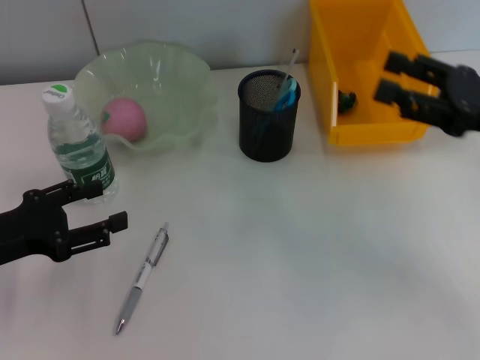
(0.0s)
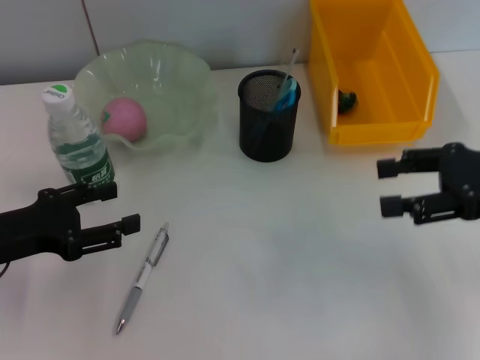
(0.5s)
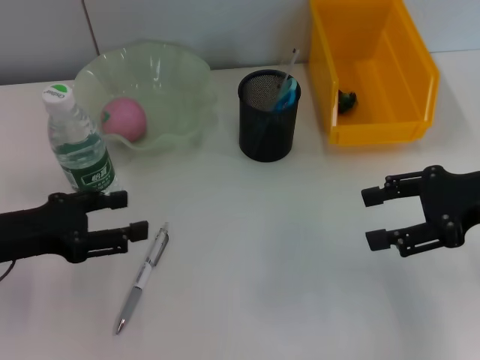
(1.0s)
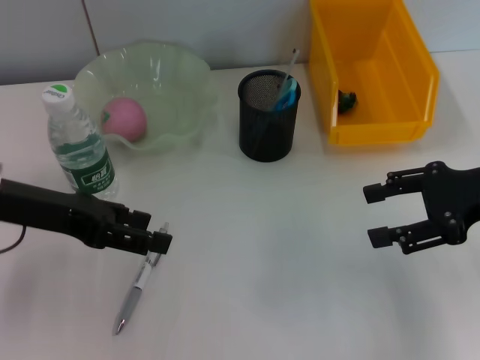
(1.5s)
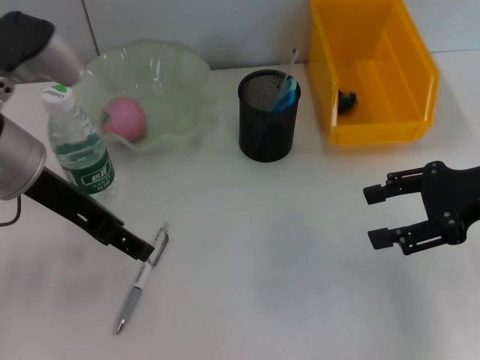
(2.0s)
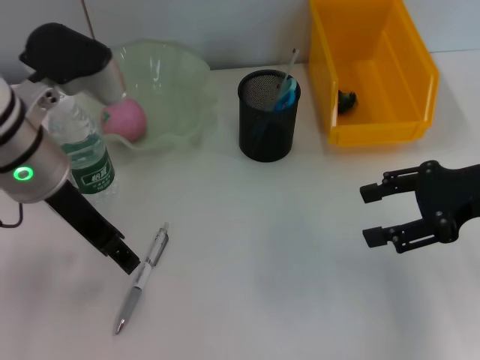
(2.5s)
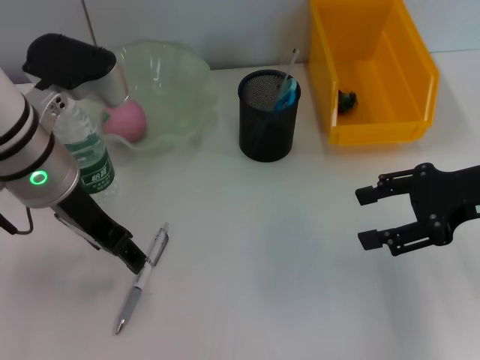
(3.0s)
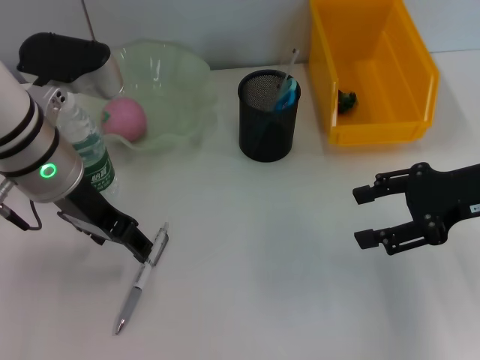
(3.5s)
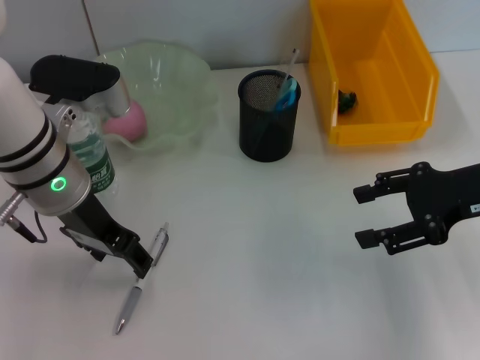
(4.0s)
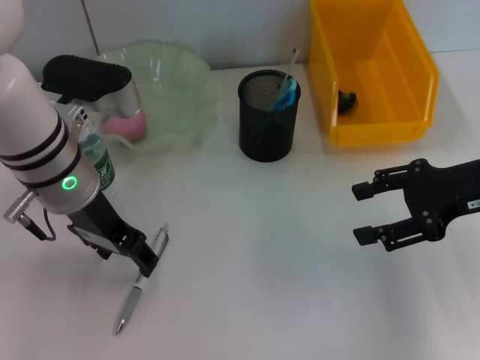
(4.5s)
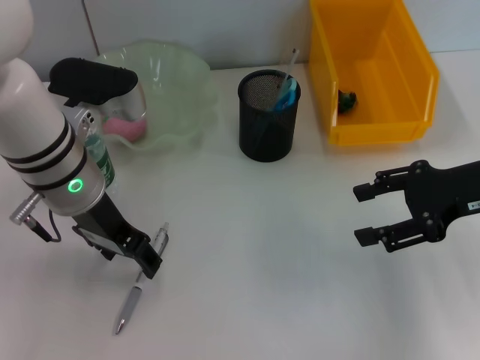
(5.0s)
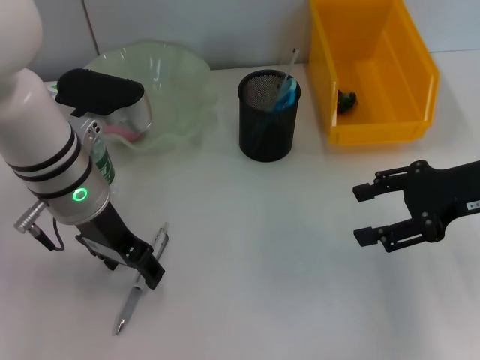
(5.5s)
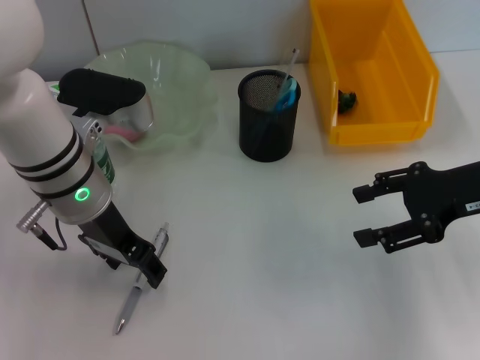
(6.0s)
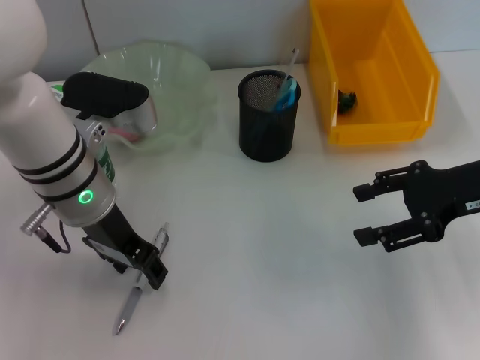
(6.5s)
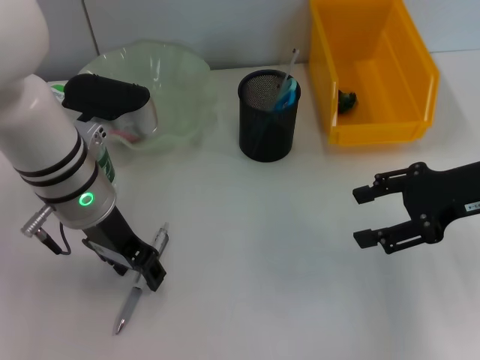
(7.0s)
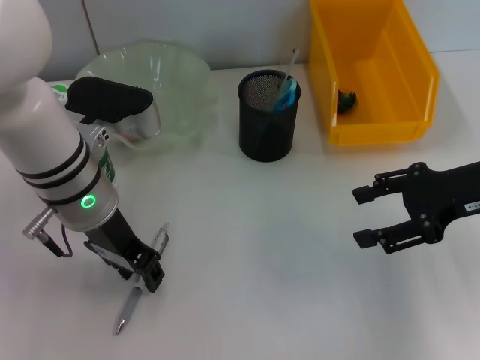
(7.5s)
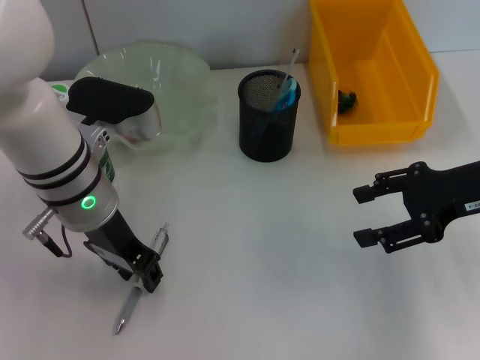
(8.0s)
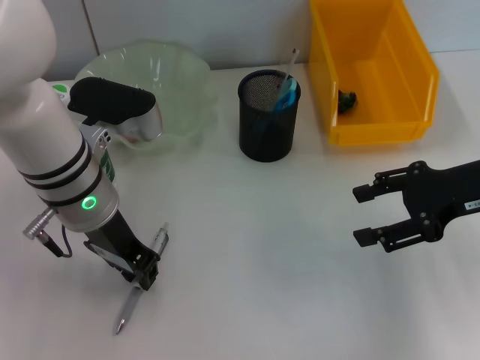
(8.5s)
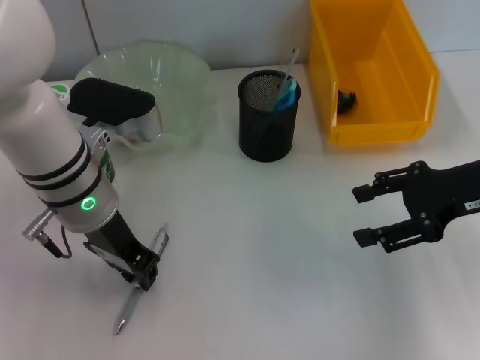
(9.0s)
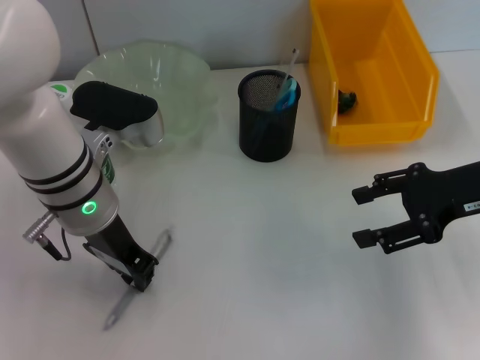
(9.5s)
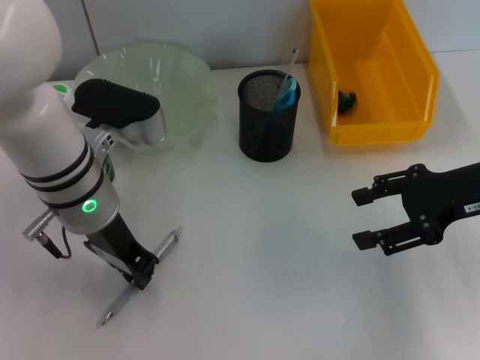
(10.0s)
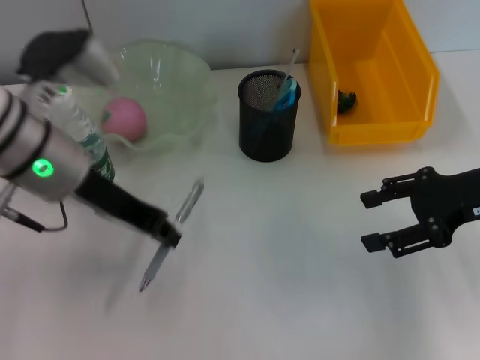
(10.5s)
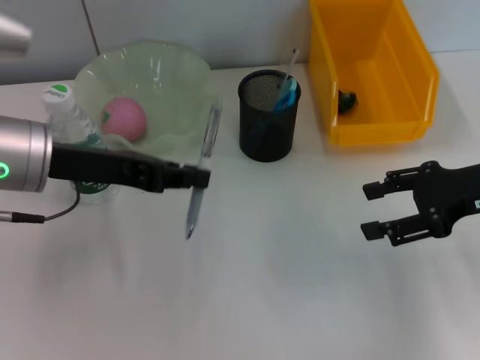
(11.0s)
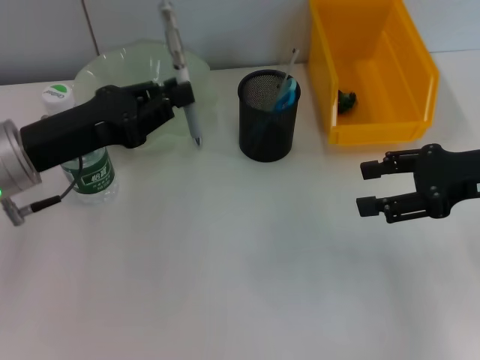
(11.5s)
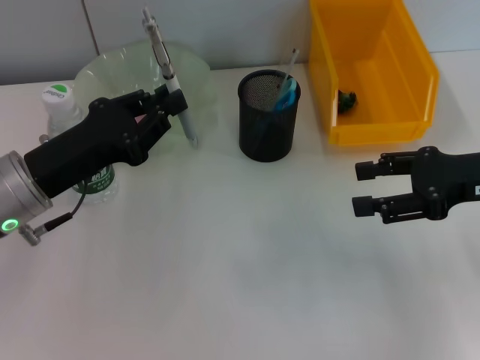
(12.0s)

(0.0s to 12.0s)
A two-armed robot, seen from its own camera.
Step, 0.0s - 9.5s: Grab the gray spring-action pen with the left hand.
0.0s - 2.0s: The left gripper heads upward, to the right and forward, covering approximately 15 cm.
2.0s - 4.0s: The left gripper changes place by about 5 cm.
4.0s - 6.0s: The grippers move only a little.
6.0s - 8.0s: Both grippers stay put.
8.0s - 10.0s: The left gripper closes.
10.0s - 12.0s: The left gripper shifts about 10 cm to the left.

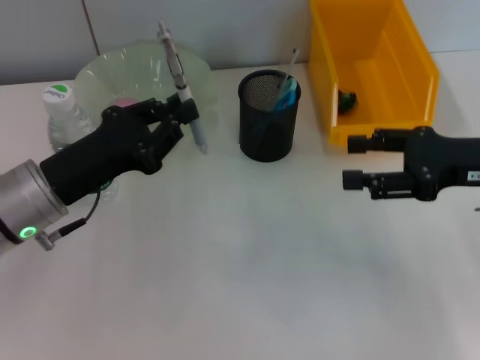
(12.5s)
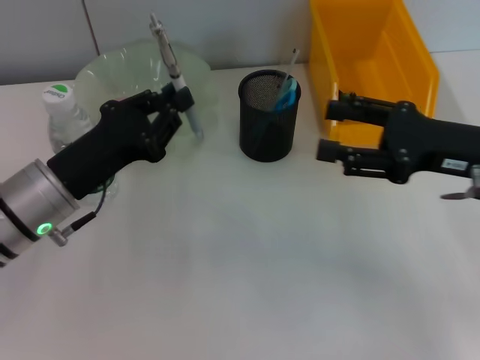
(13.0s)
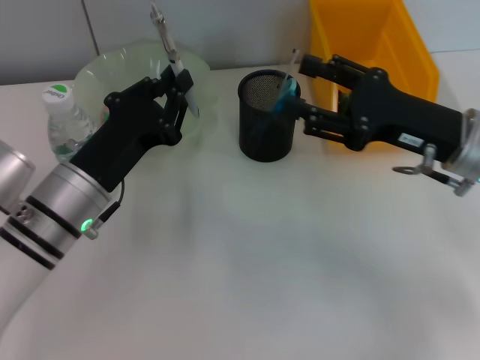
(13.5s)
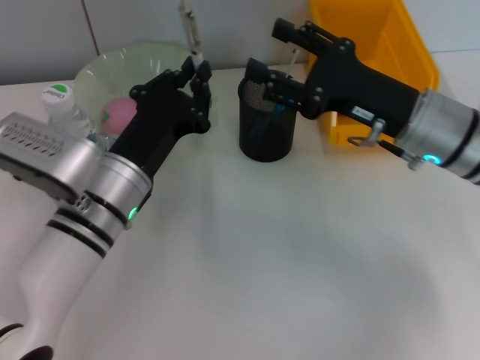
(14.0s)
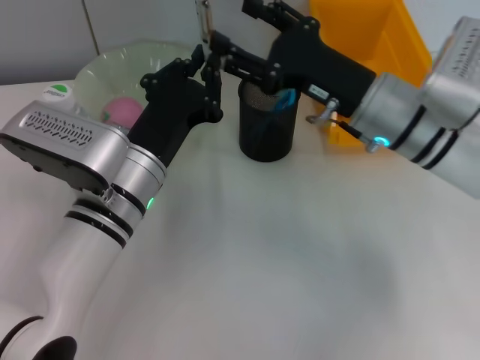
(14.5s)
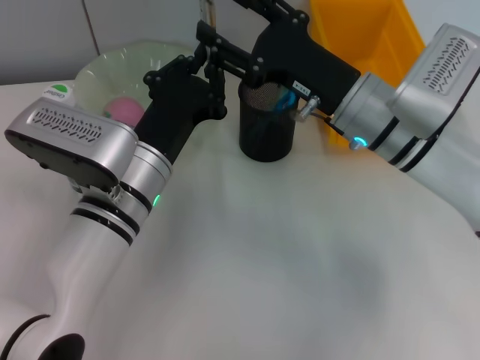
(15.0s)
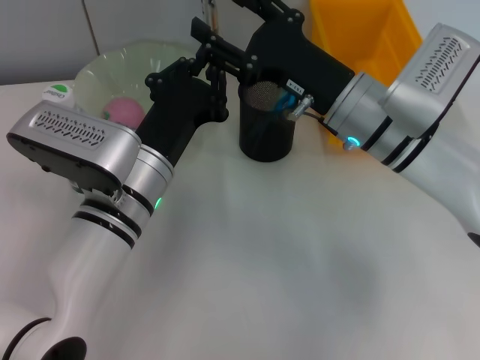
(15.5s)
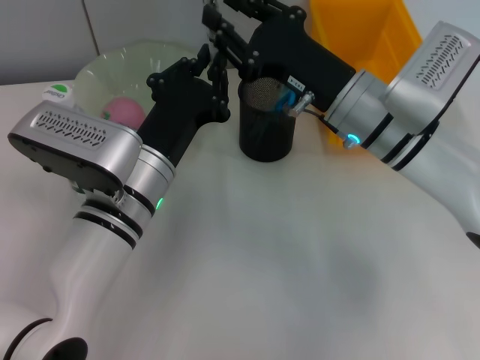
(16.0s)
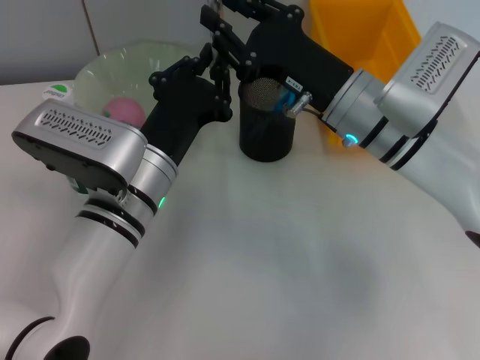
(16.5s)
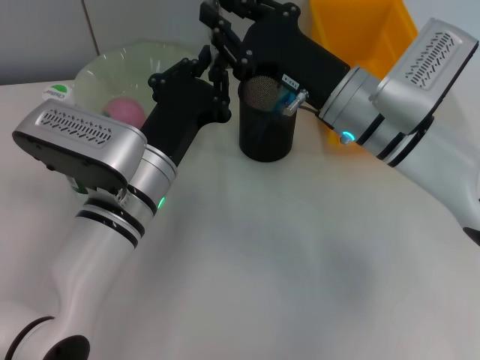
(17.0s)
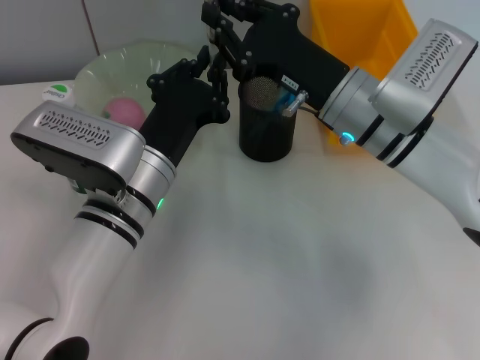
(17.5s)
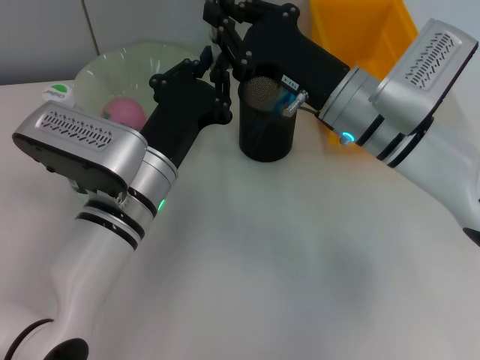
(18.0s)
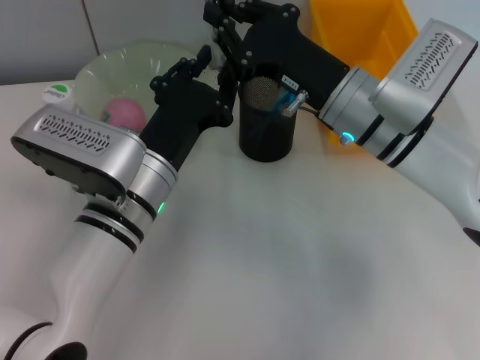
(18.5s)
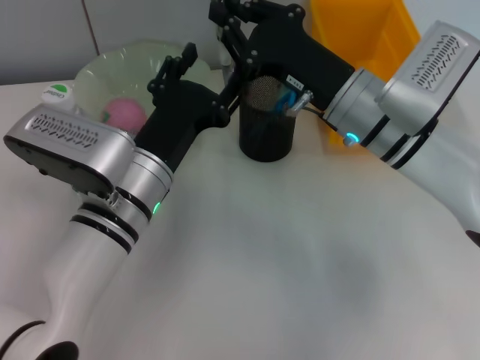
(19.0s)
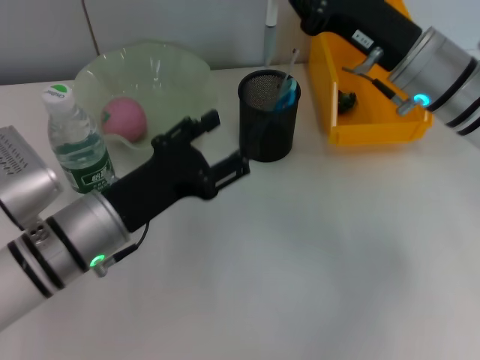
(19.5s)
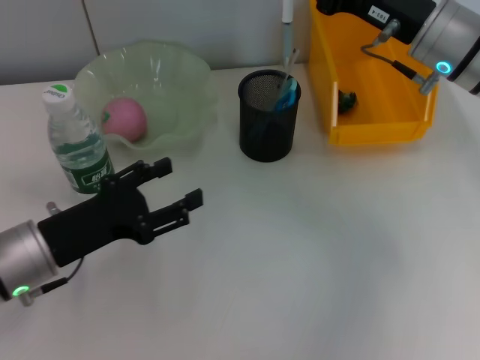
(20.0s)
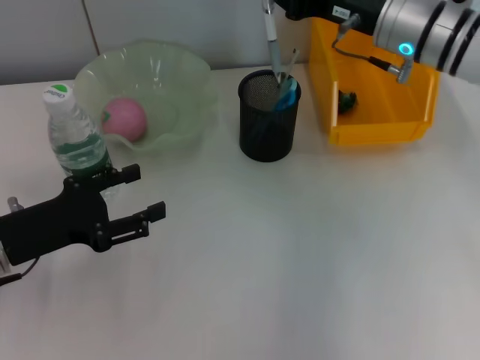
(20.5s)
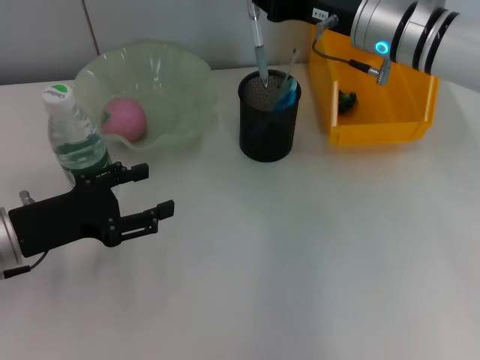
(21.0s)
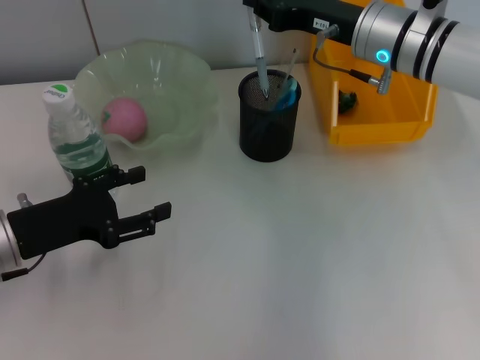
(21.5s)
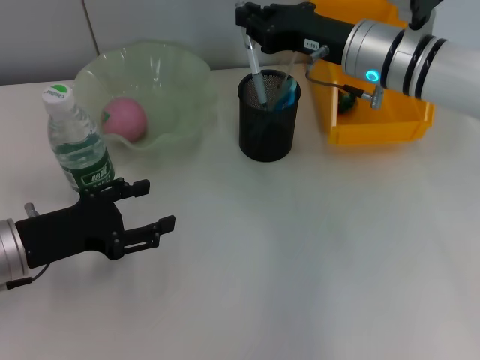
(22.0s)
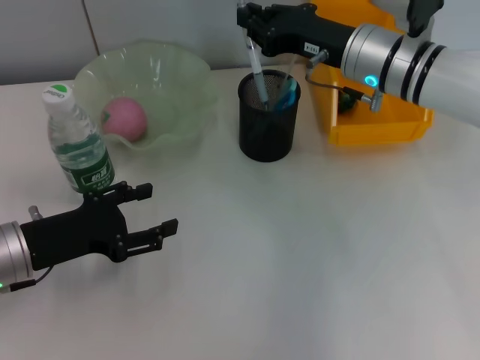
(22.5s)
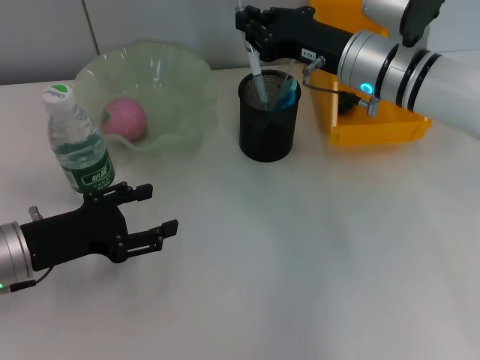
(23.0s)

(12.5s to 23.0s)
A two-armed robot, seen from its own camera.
Step, 12.5s - 18.0s: Pass the gray spring-action pen from the left hand to the right hand.
12.5s - 14.5s: The right gripper shifts approximately 15 cm to the left and forward. The left gripper travels to the right by approximately 10 cm.
14.5s - 16.5s: The right gripper closes up.
16.5s - 19.0s: The left gripper opens its fingers.
19.0s - 21.0s: The right gripper heads forward, covering approximately 5 cm. Meanwhile the left gripper moves to the left, some 15 cm.
21.0s - 23.0s: The grippers move only a little.

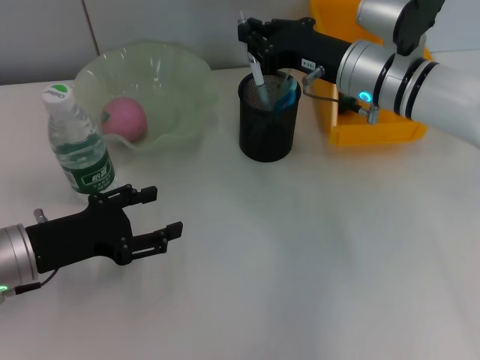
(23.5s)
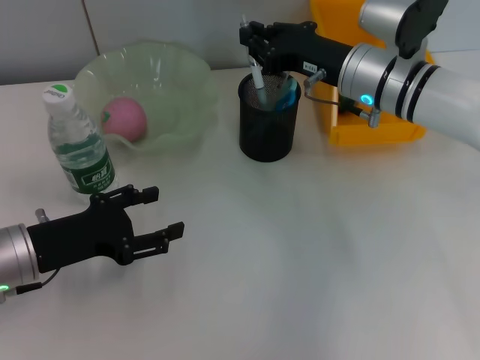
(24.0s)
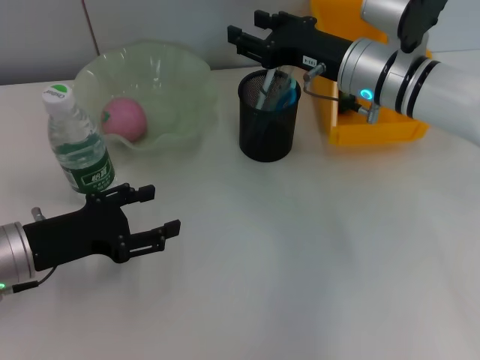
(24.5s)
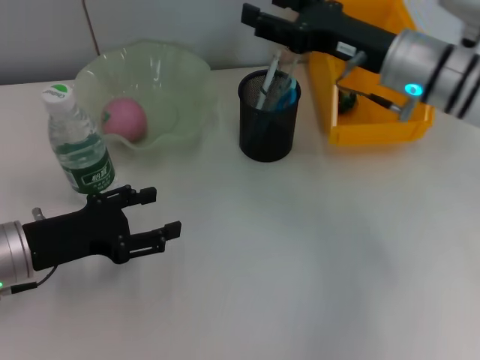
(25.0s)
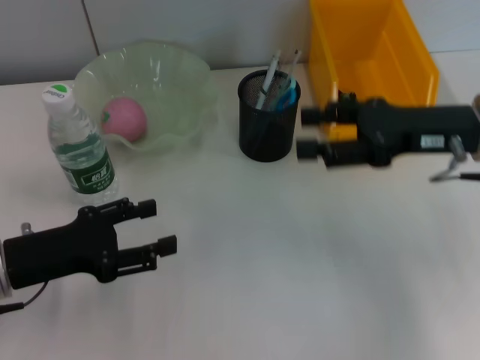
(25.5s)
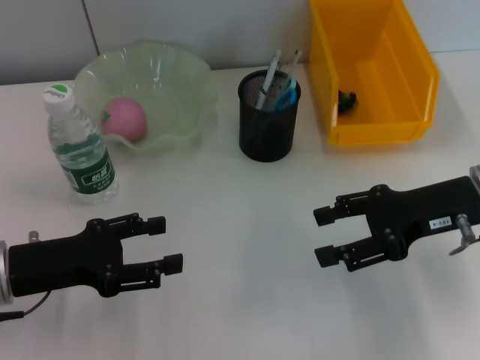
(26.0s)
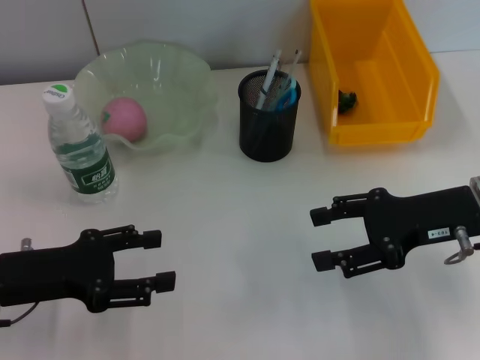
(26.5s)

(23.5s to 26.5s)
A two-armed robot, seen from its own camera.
23.5s - 25.0s: The right gripper opens.
25.0s - 26.5s: The right gripper travels backward and to the right by approximately 10 cm.
